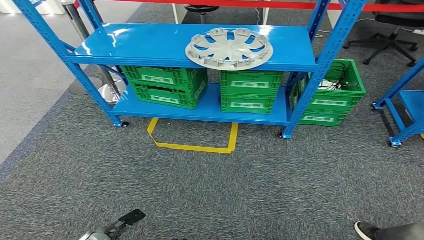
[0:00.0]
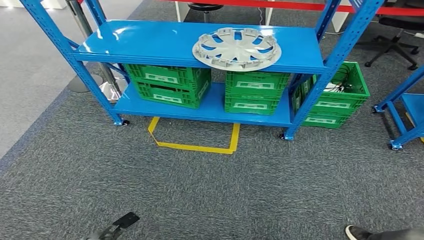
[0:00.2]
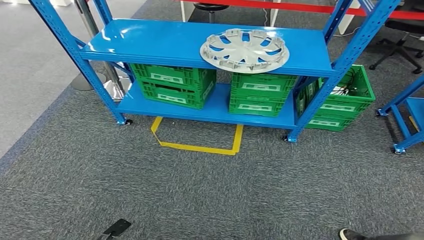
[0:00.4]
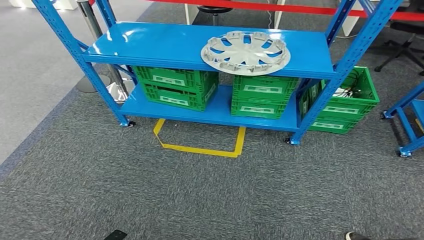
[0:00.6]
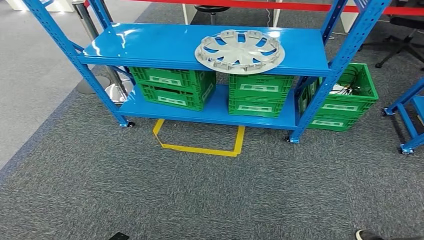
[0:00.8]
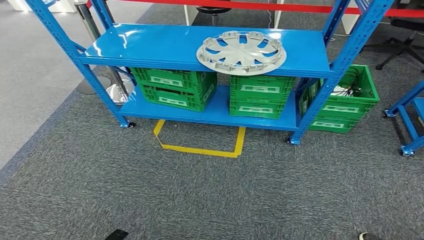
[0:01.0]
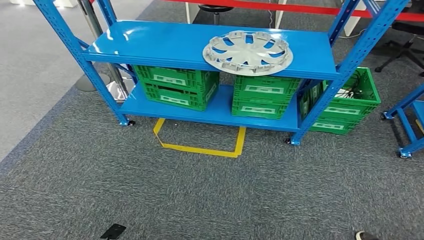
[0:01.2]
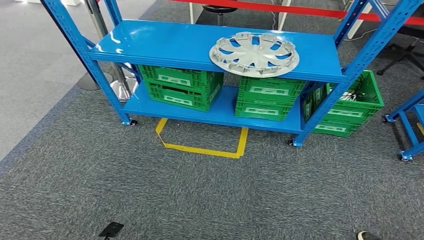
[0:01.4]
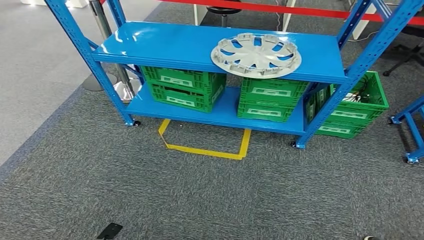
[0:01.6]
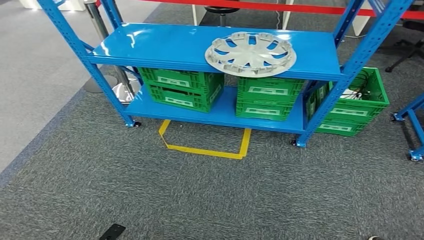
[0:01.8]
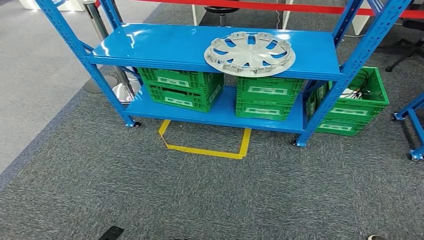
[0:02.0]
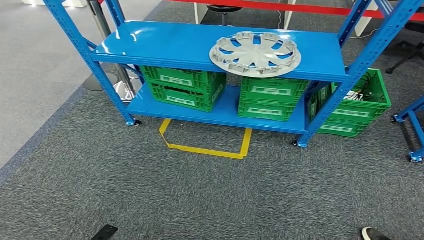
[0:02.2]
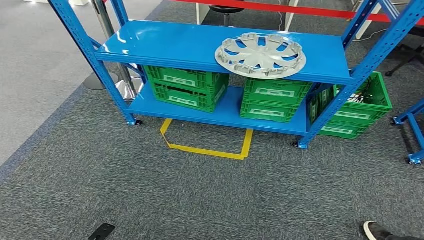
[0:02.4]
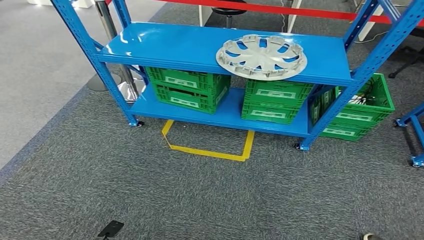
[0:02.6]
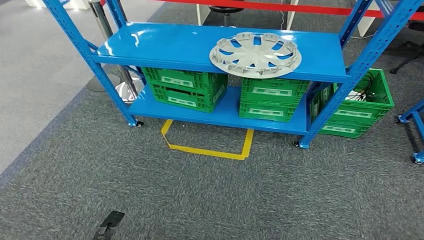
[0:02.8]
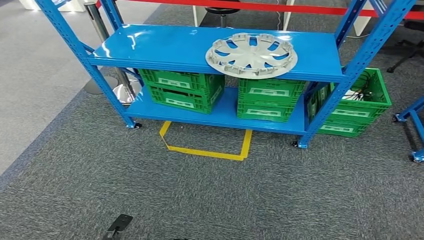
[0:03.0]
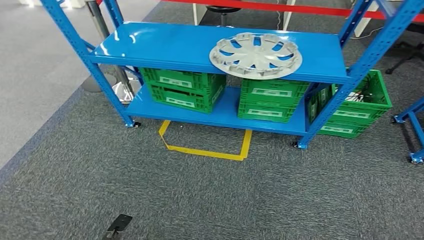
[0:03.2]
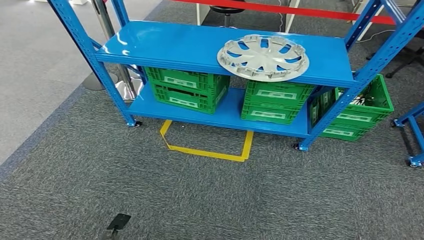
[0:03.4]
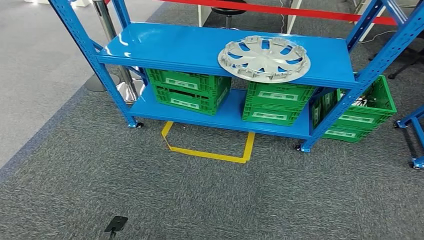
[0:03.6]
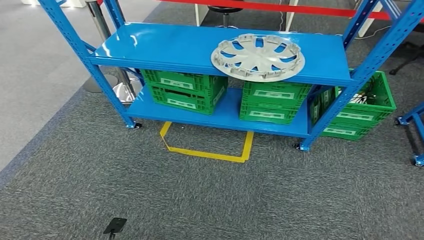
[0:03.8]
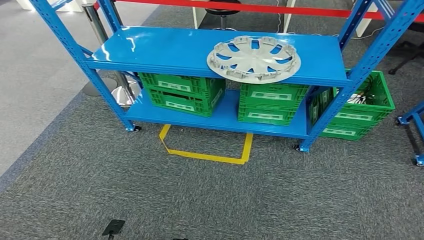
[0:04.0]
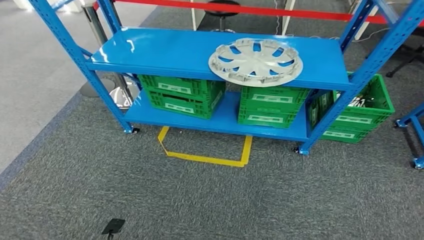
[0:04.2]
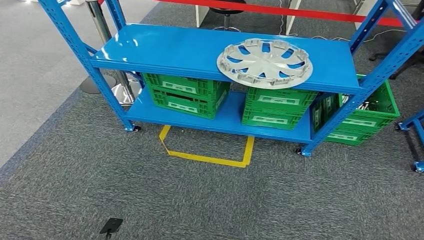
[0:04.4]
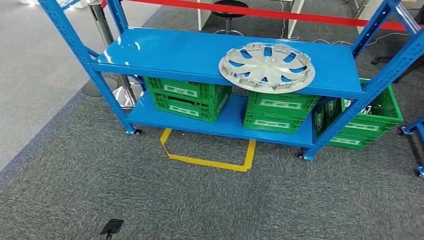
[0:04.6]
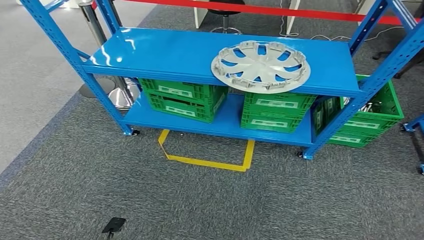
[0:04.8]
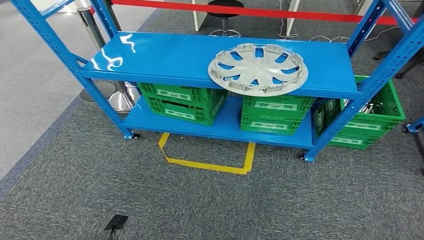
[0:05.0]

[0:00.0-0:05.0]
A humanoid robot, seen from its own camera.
Step, 0:00.0 to 0:05.0: Move to the initial position at the workbench.
0:01.6 to 0:03.4: There are only small adjustments of the hands.
